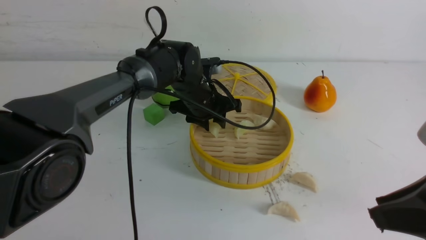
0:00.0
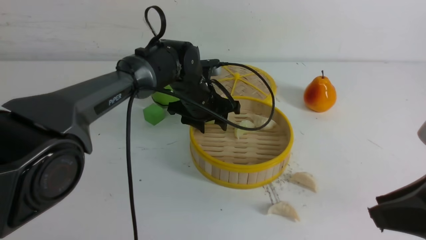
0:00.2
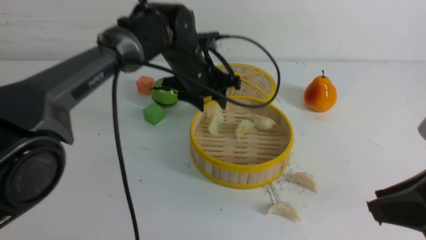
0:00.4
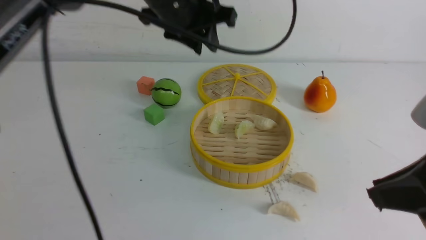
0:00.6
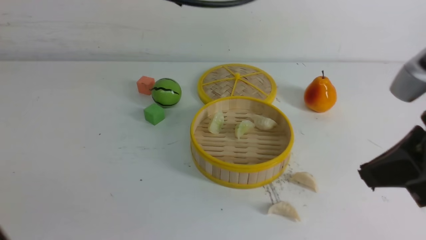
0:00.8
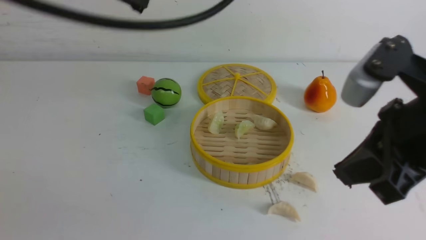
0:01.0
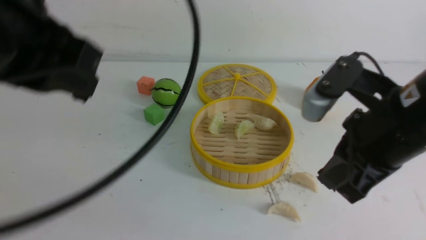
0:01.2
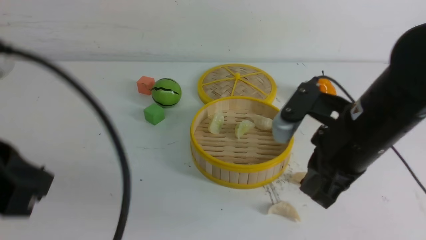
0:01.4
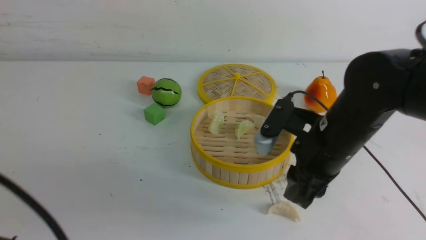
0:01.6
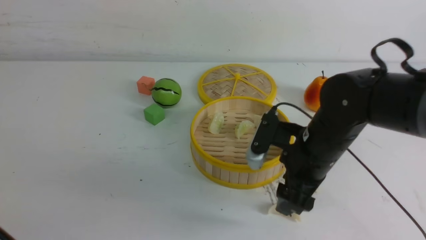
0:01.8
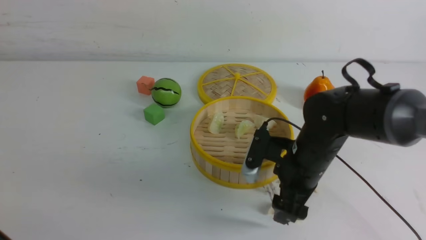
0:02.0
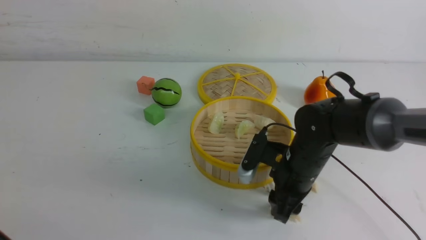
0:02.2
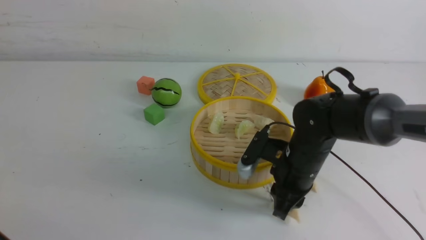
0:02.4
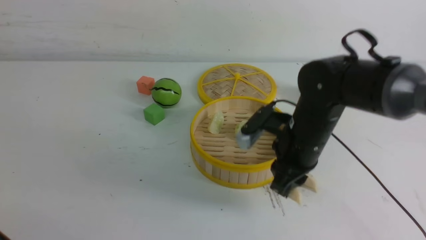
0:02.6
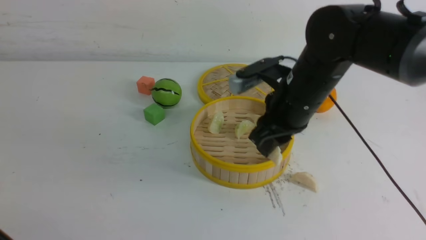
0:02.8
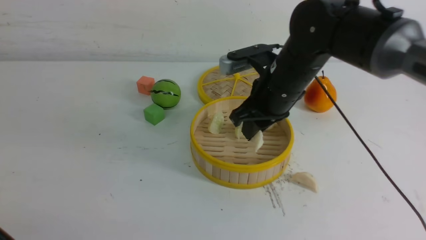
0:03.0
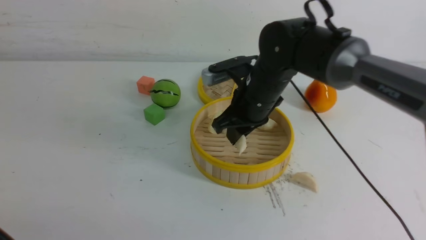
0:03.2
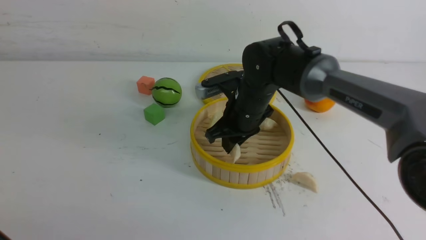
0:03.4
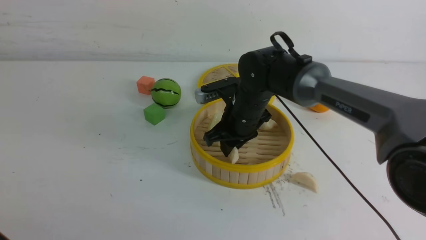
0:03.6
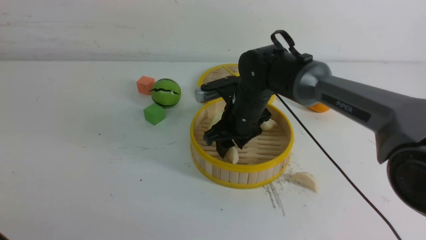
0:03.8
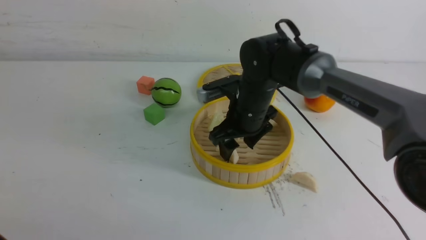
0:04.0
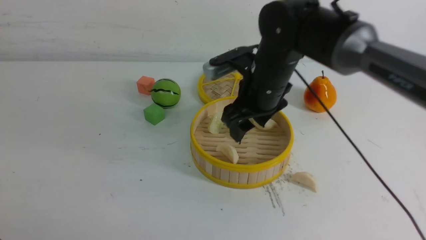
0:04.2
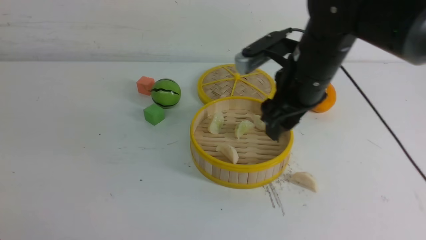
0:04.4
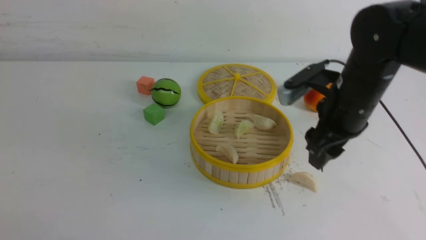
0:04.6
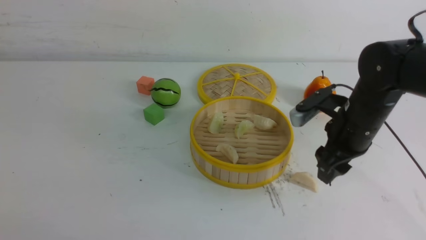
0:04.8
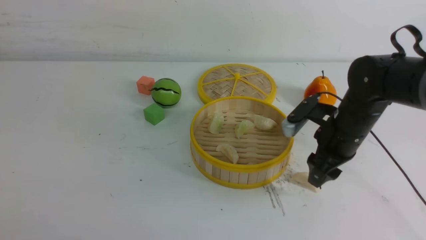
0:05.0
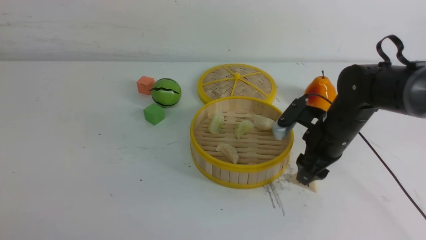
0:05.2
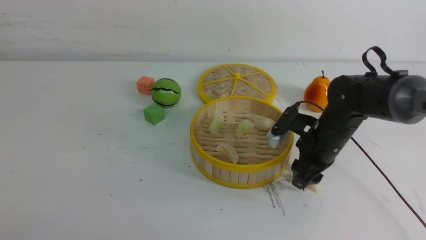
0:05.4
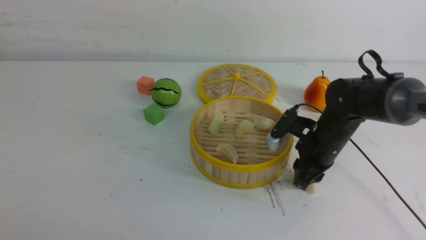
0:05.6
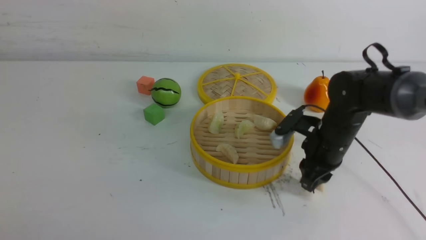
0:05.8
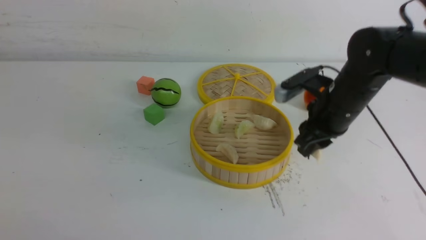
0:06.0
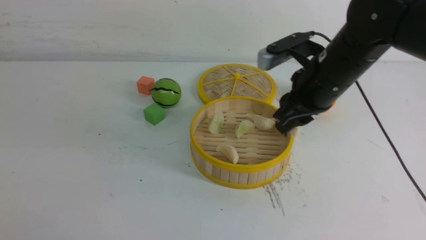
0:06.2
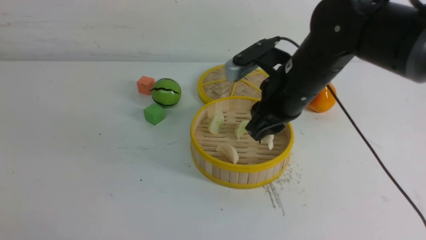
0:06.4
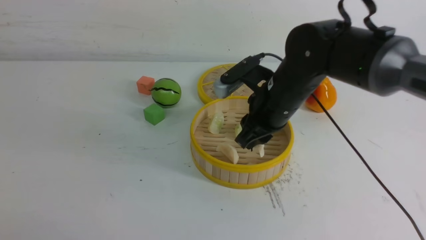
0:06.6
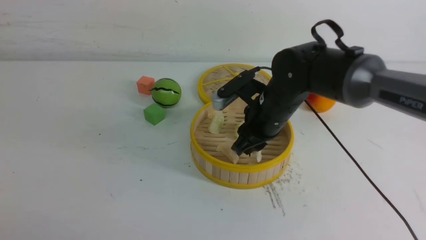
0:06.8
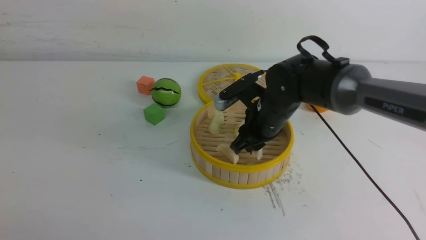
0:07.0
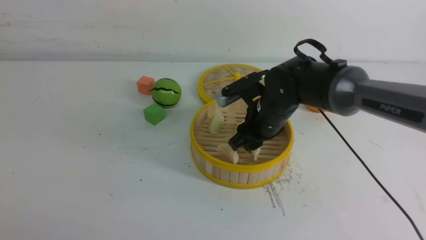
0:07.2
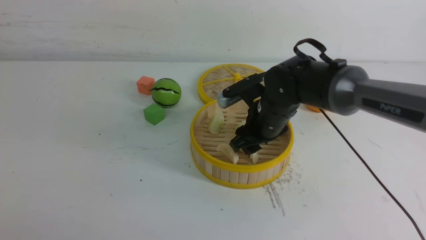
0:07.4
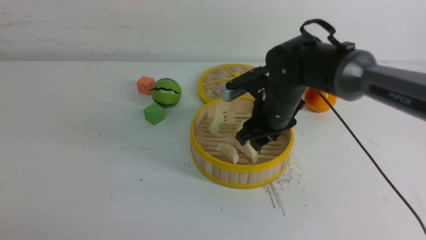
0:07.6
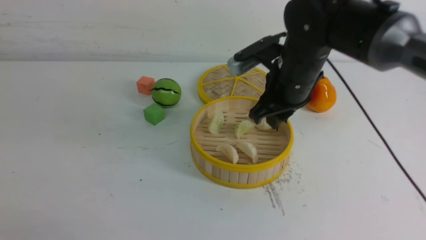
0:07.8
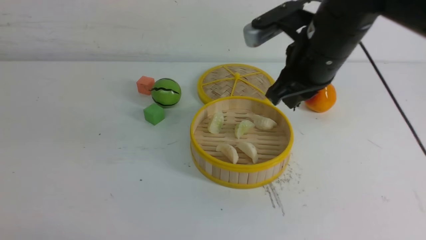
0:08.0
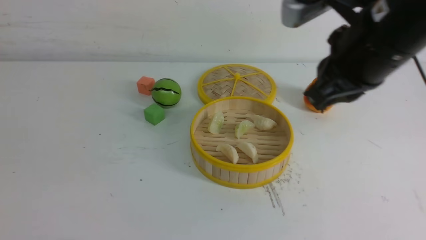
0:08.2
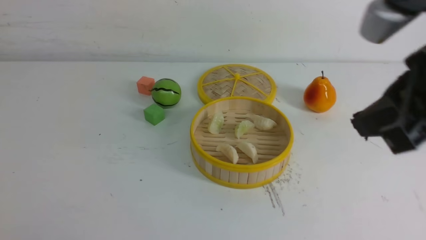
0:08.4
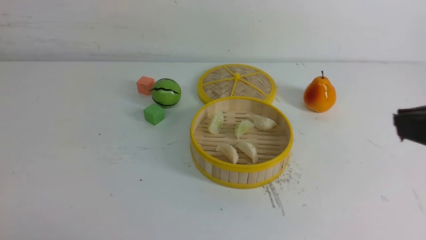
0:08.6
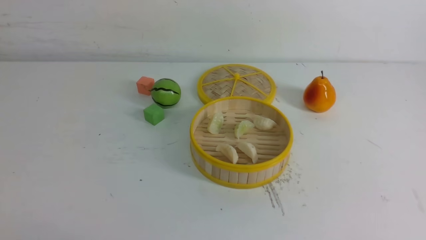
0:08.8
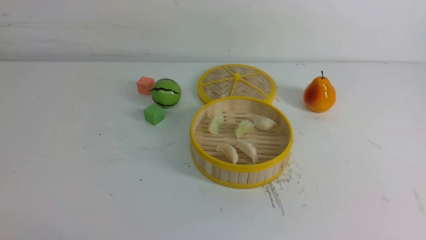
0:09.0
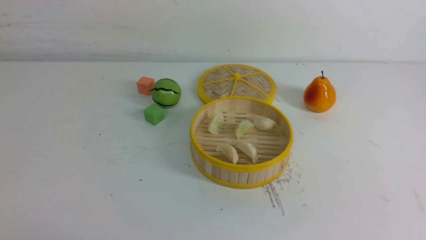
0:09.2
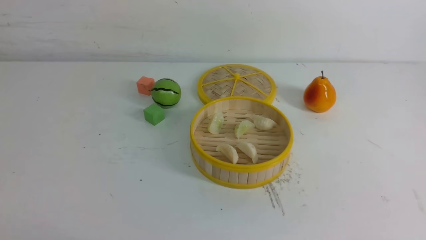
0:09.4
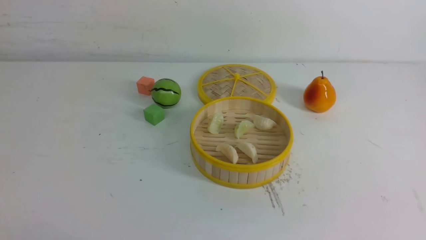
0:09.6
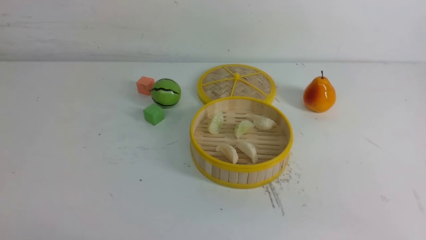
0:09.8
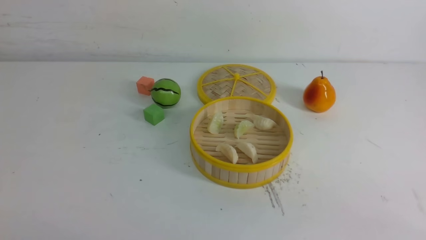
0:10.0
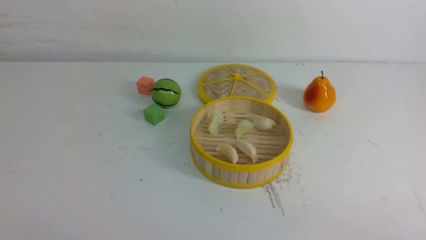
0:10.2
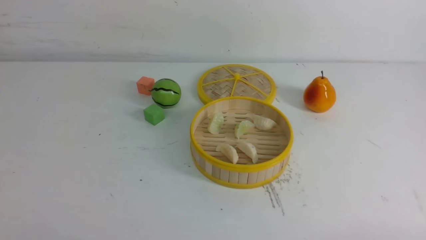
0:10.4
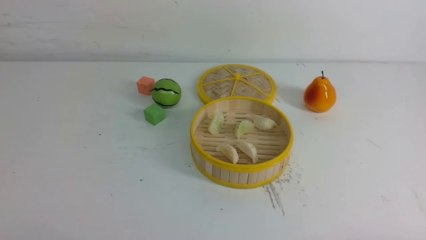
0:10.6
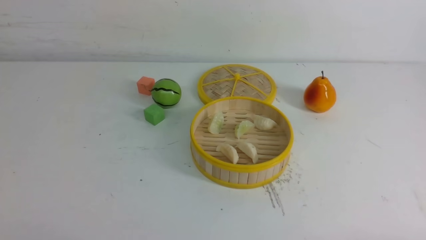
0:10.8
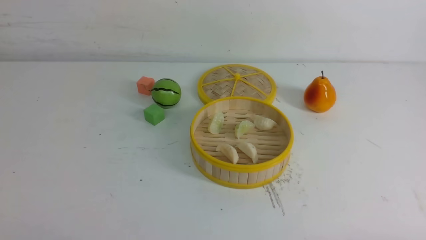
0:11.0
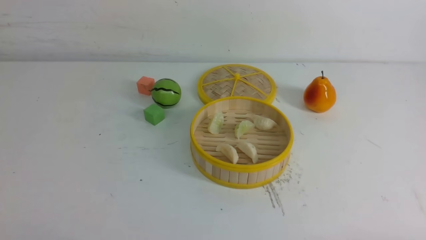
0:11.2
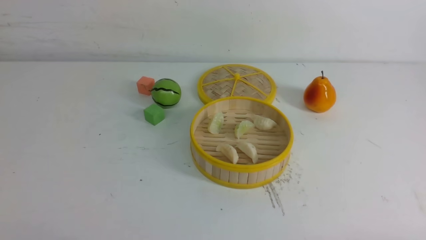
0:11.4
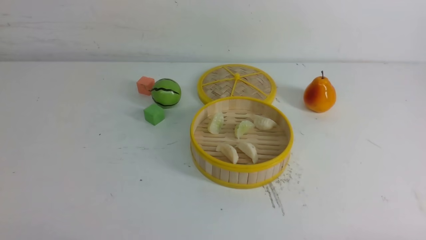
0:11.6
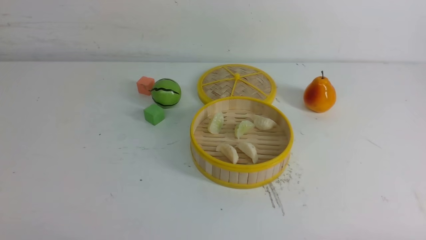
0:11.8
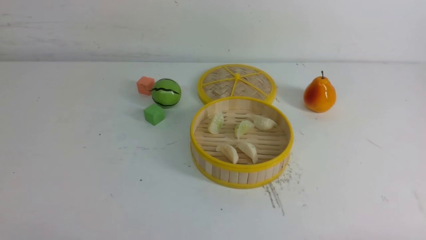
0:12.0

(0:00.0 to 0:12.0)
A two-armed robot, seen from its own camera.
Task of the whole recording: put the dumplings into the steamer on the white table.
Step, 0:00.4 - 0:02.2: use the right arm to grab a dumpling.
Step, 0:02.4 - 0:03.8: use the right arm to put the dumpling into the steamer.
Step, 0:04.0 - 0:05.6: use the right arm to grab a dumpling.
Step, 0:05.8 - 0:07.6: use the right arm to put the dumpling into the steamer.
0:00.0 - 0:01.6: The right gripper travels forward, to the left and downward by some 15 cm, while the left gripper shifts about 40 cm backward, to the left and upward, and closes up.
0:01.6 - 0:03.0: The right gripper moves forward, roughly 10 cm, goes downward and returns, some 10 cm each way, and opens, then closes once more, while the left gripper ends up roughly 5 cm from where it was.
0:03.0 - 0:04.4: The right gripper travels downward and back again, approximately 10 cm each way, and opens.
0:04.4 - 0:06.0: The right gripper shifts roughly 10 cm to the right and downward, and closes.
0:06.0 - 0:07.6: The right gripper moves to the left, approximately 10 cm, and reaches about 5 cm upward, then returns.
0:07.6 - 0:09.0: The left gripper goes approximately 5 cm backward, while the right gripper goes some 40 cm backward, upward and to the right, and closes.

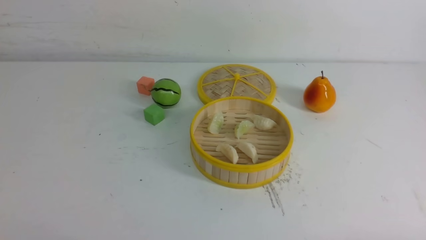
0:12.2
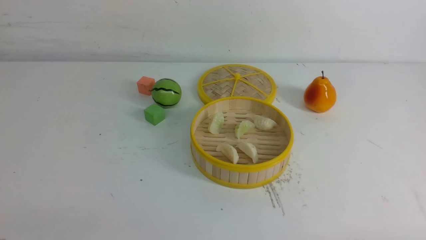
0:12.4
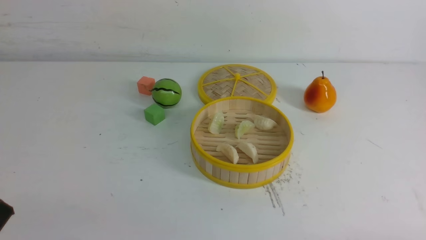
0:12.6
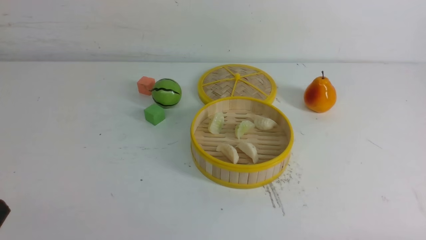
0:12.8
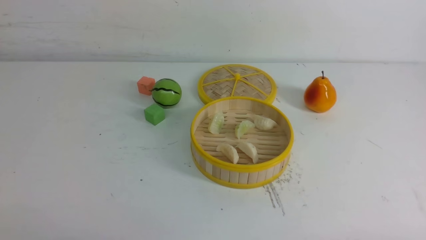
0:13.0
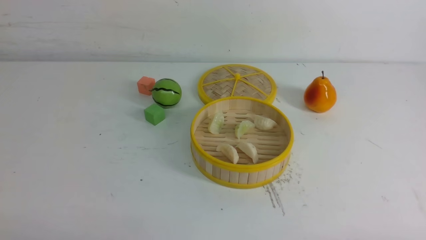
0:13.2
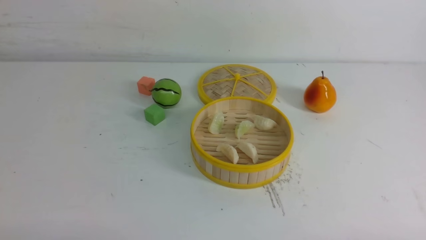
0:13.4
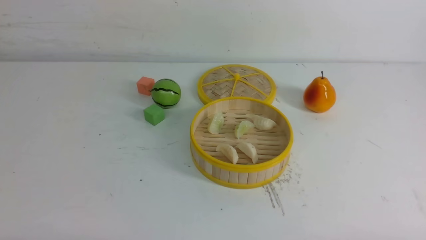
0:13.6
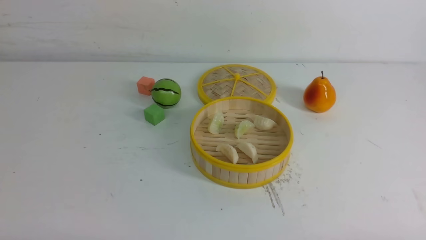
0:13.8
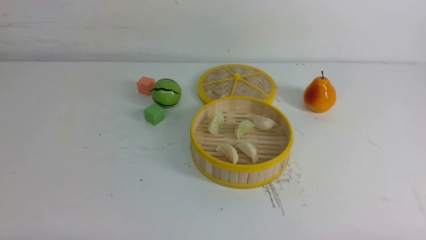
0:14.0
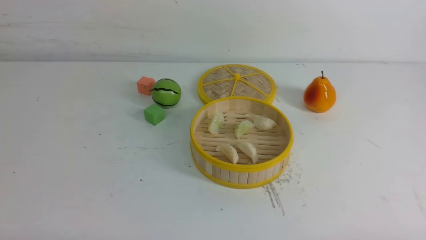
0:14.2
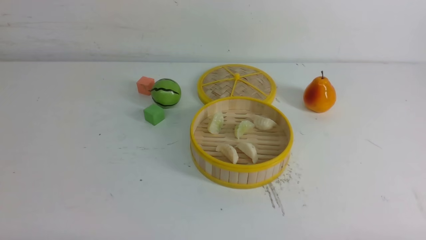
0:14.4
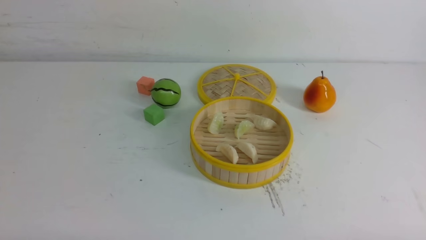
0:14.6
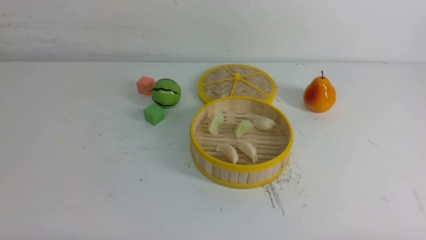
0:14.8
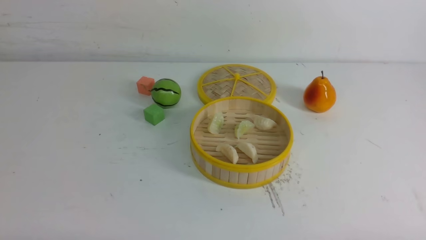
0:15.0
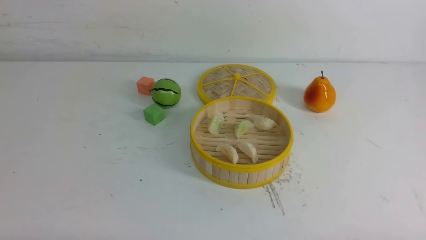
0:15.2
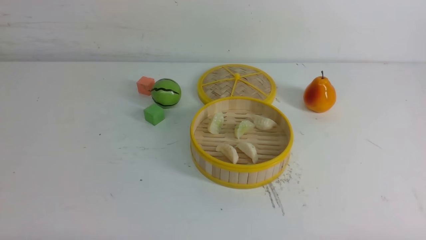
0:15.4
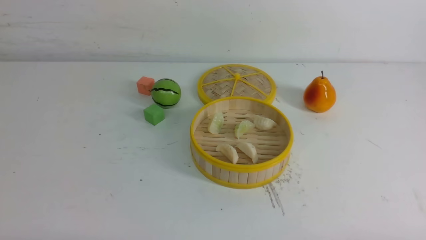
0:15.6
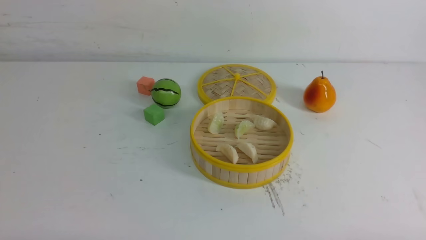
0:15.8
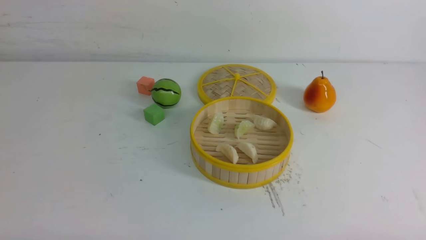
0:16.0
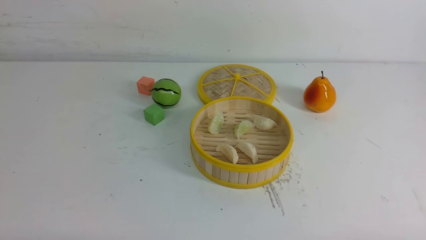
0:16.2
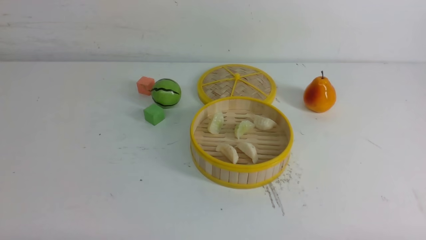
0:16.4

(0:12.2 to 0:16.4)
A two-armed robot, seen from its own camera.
Task of the whole recording: put the dumplings into the steamer on the white table.
0:15.0 - 0:16.4: Both grippers stay about where they are.
